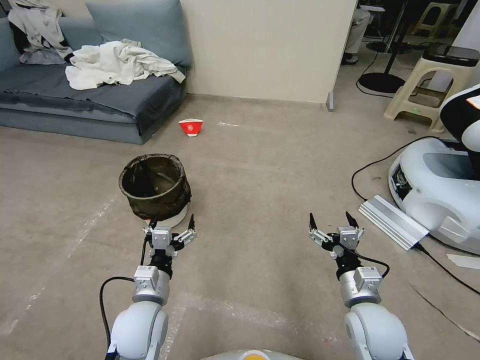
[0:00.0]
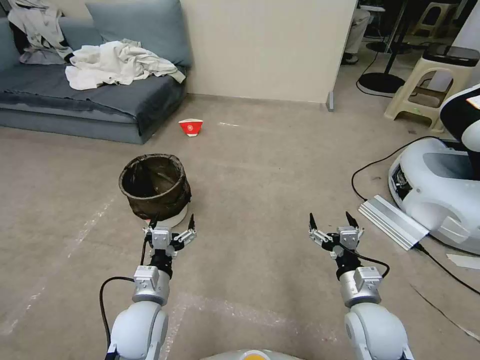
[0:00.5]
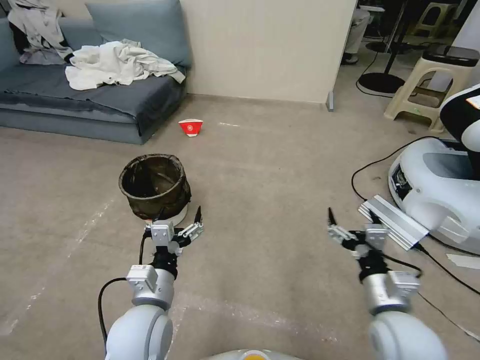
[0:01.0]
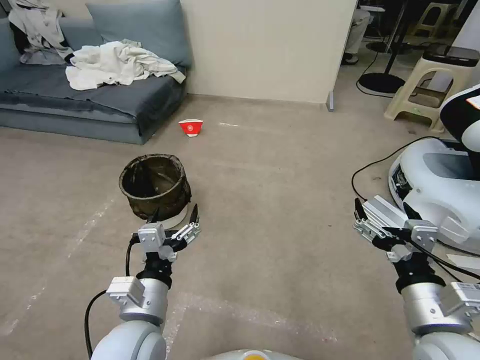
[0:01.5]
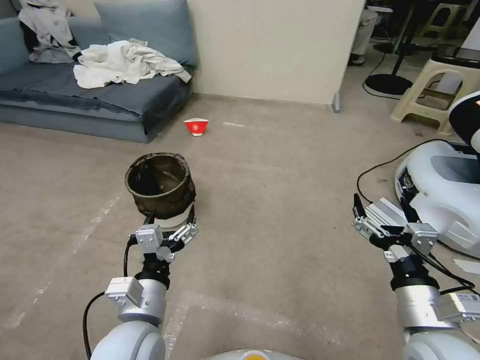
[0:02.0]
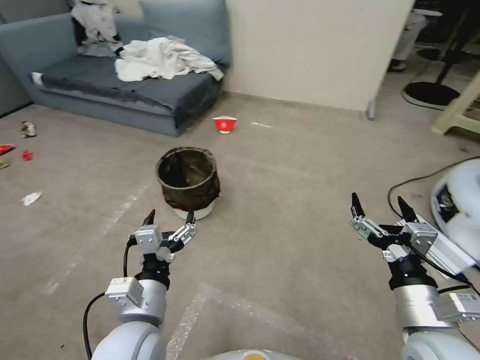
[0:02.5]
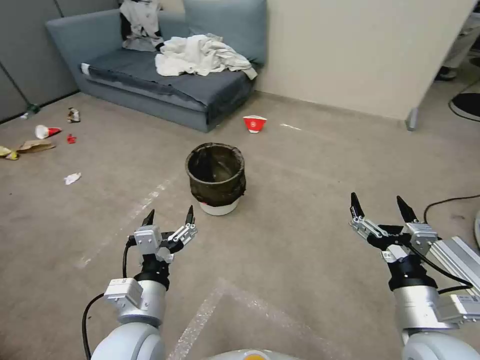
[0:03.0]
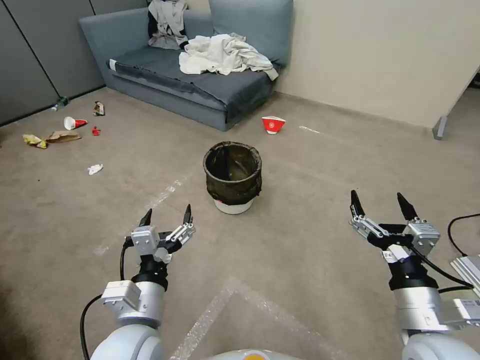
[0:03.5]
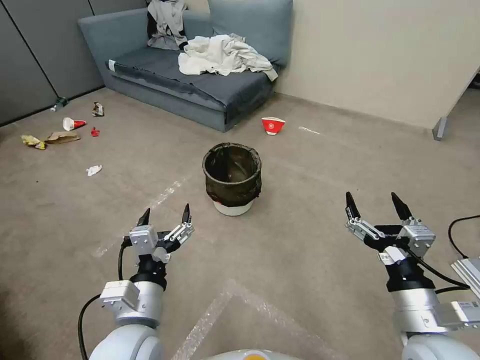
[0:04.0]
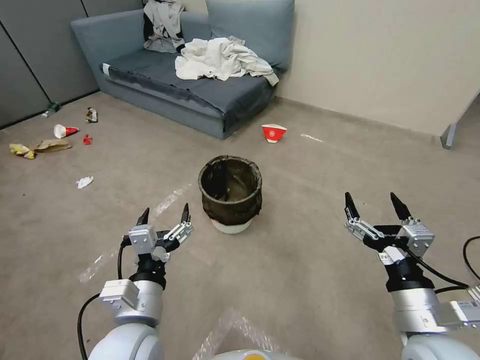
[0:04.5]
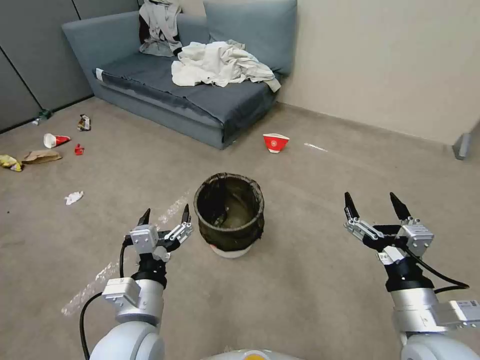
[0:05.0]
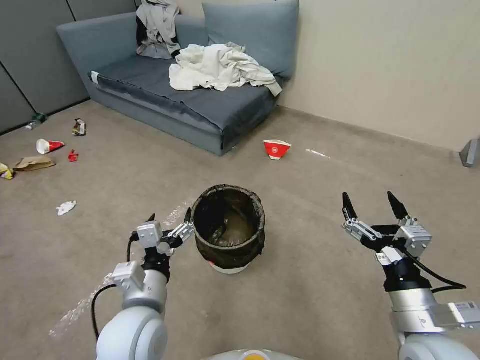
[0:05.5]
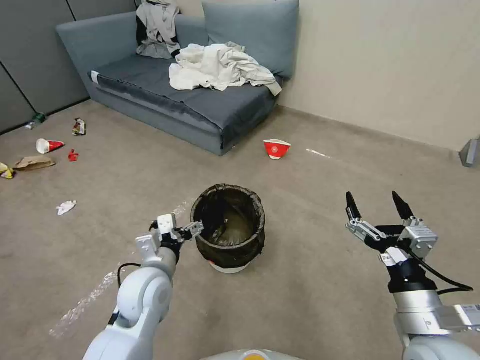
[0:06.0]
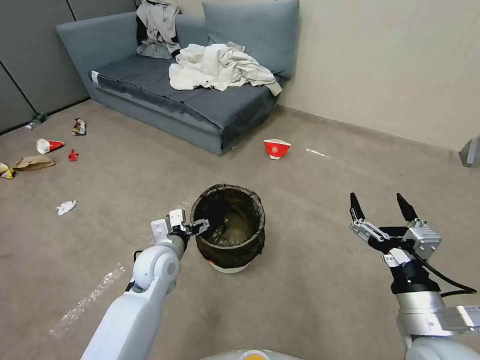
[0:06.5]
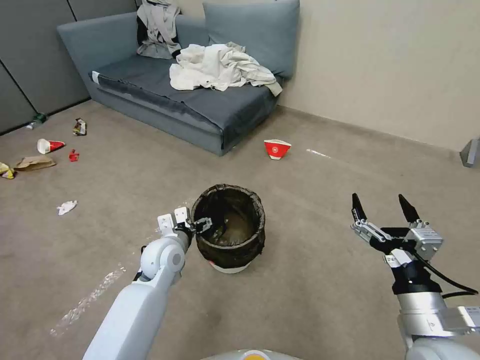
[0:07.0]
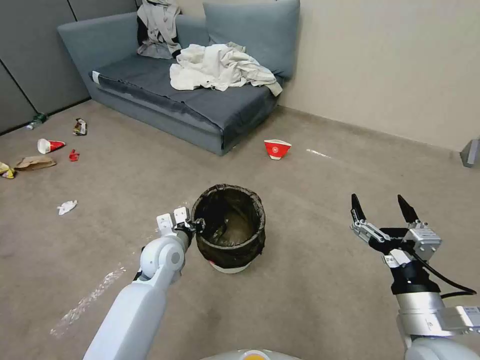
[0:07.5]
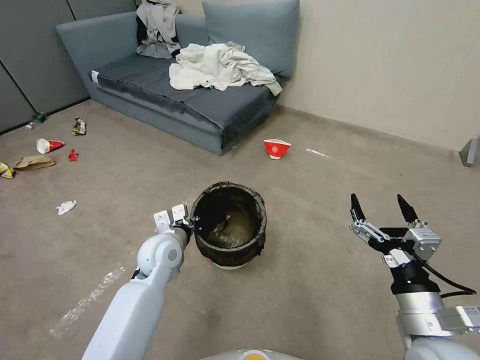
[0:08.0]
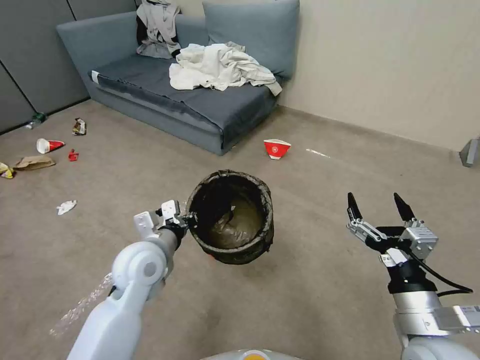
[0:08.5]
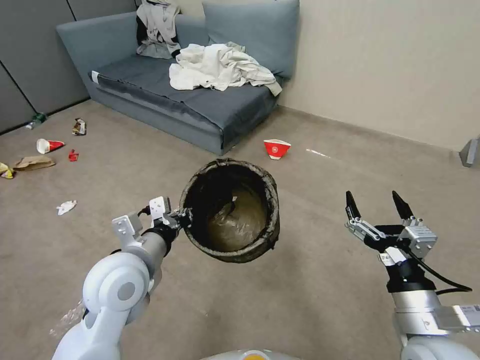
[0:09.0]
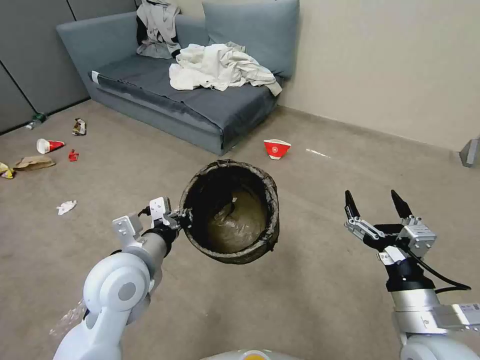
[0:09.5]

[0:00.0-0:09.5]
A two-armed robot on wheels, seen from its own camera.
Task of the whole recording: Pick up the trash can from the floor.
0:05.5 to 0:07.5: The left gripper is displaced forward and downward by roughly 20 cm, and closes its fingers.
0:07.5 to 0:09.5: The left gripper heads upward and backward, covering about 15 cm.

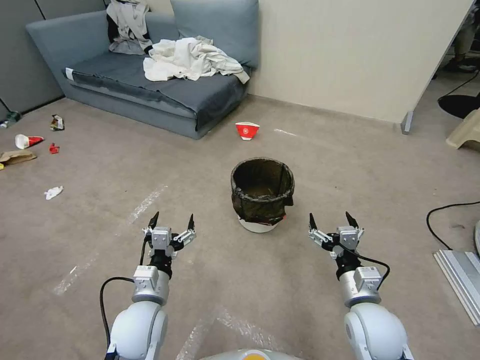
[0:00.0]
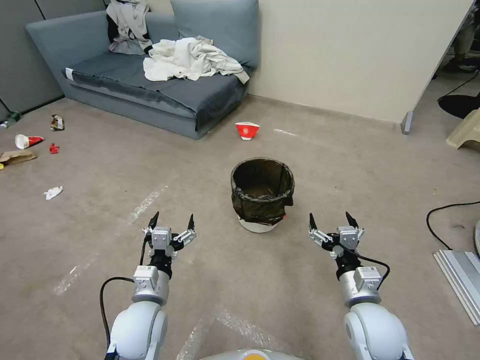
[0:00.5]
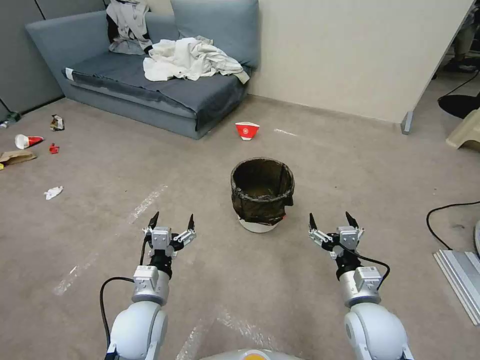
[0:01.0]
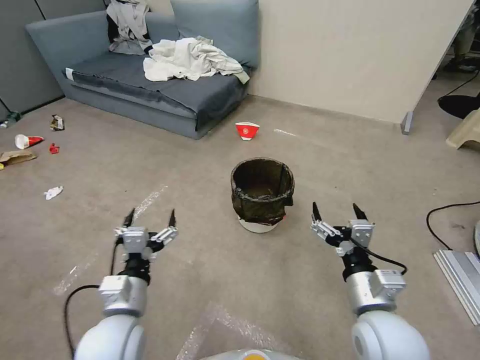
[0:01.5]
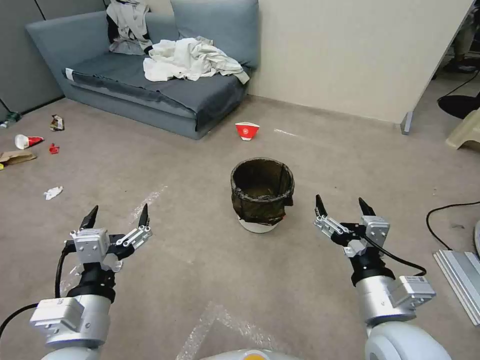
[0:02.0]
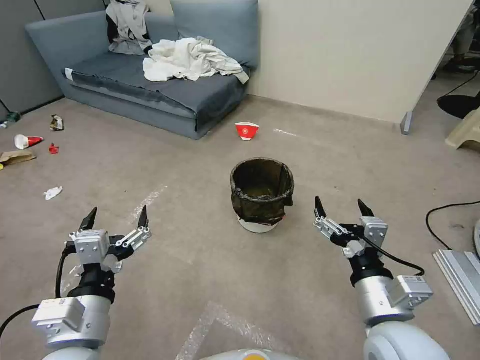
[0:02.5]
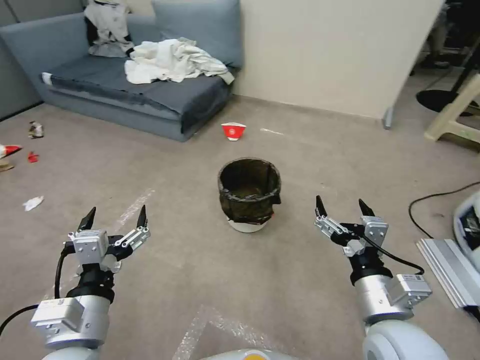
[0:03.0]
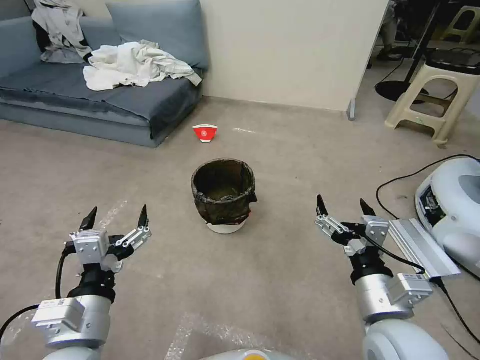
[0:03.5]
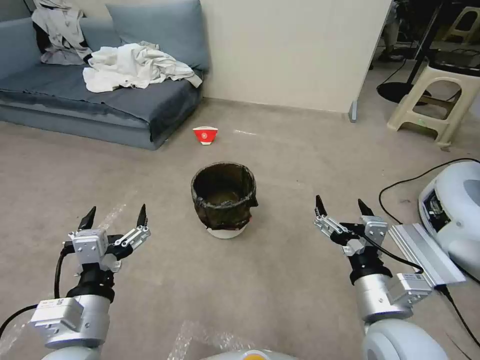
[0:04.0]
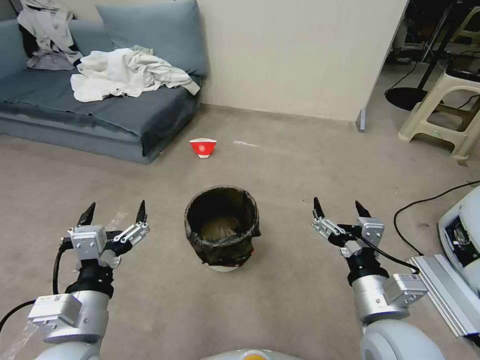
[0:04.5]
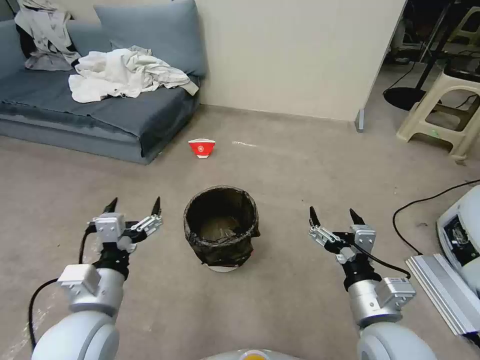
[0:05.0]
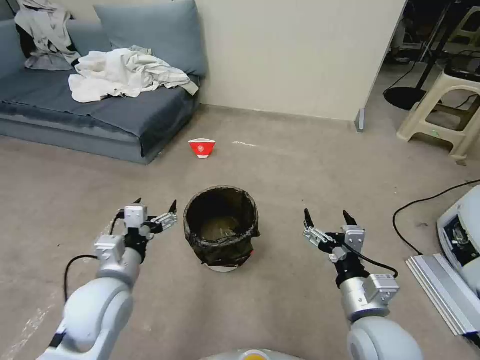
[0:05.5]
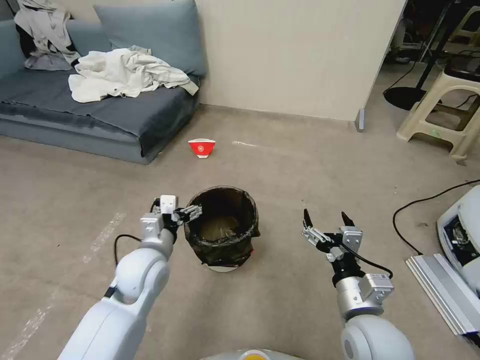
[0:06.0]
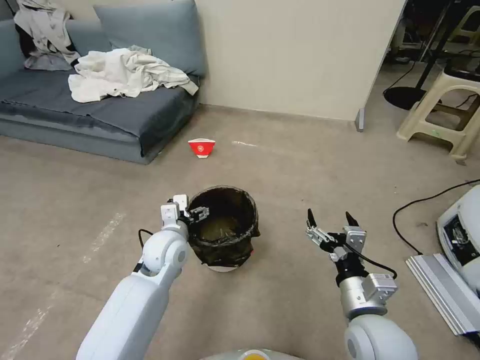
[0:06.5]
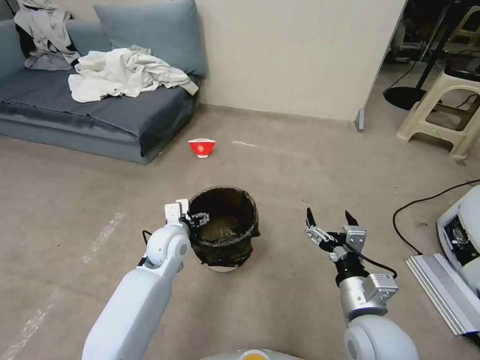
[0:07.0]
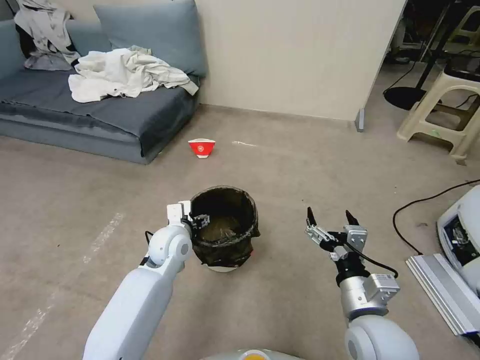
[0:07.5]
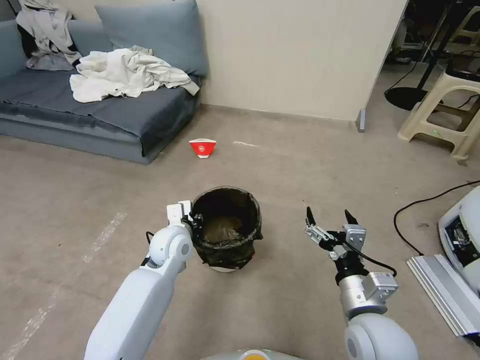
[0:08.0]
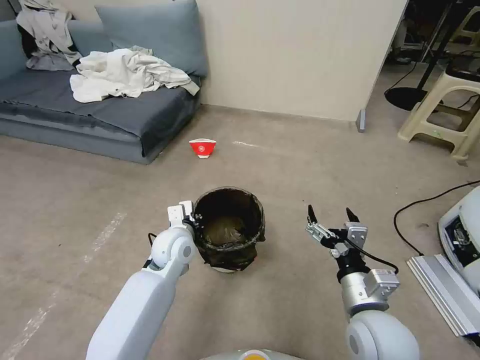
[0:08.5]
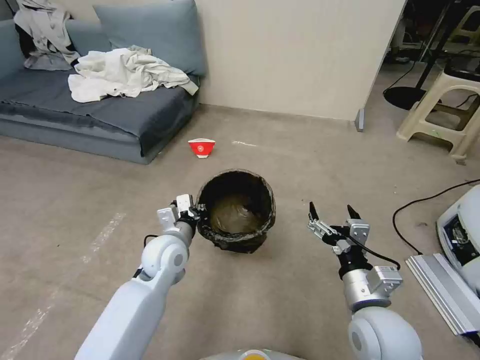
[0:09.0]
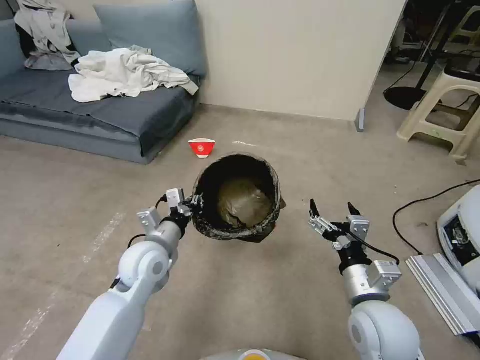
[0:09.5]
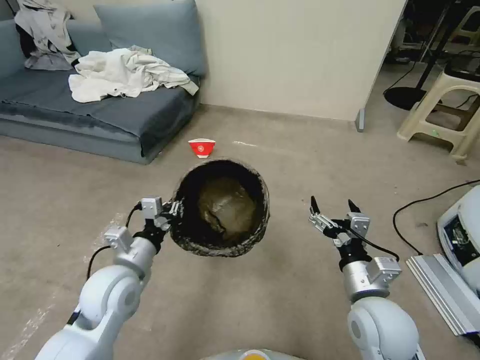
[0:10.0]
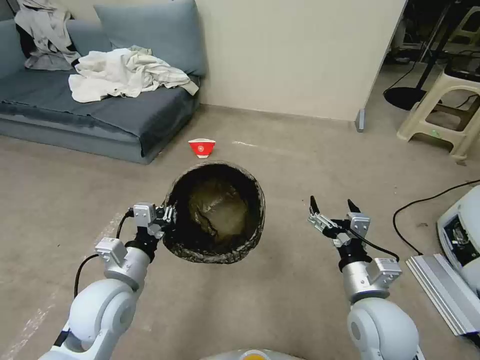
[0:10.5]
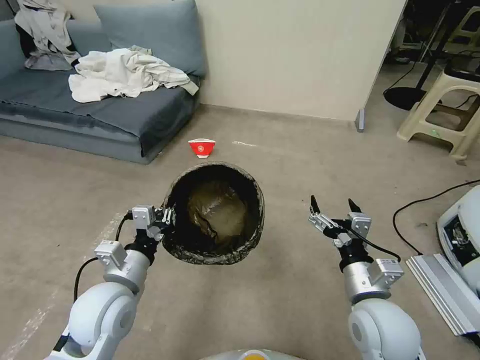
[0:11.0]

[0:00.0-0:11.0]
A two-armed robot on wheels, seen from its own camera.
Task of the whole recording: Pick up the trash can from the floor.
0:03.5 to 0:05.5: The left gripper is displaced forward by approximately 10 cm. The right gripper ends up some 5 cm from where it was.
0:05.5 to 0:07.5: The left gripper shifts about 20 cm forward, to the right and downward.
0:07.5 to 0:09.0: The left gripper closes its fingers.
0:09.0 to 0:11.0: The left gripper moves backward and to the left, some 15 cm.

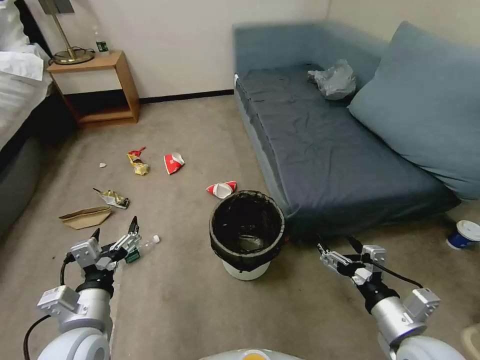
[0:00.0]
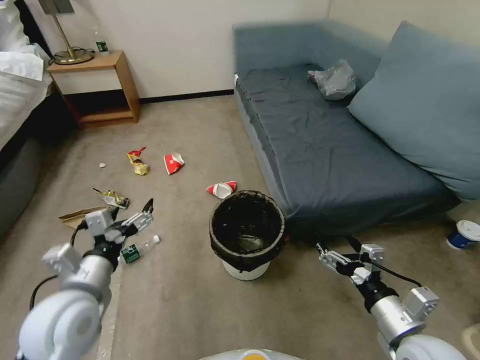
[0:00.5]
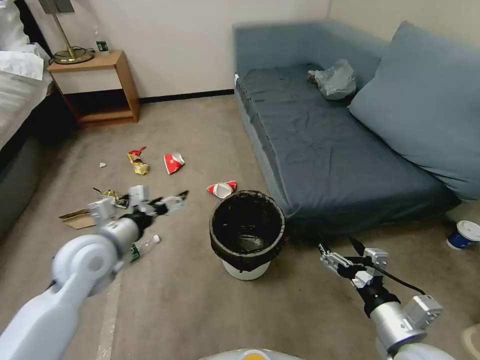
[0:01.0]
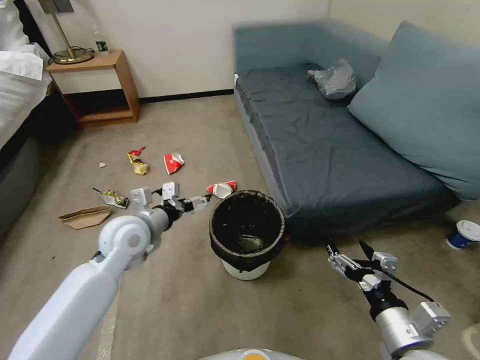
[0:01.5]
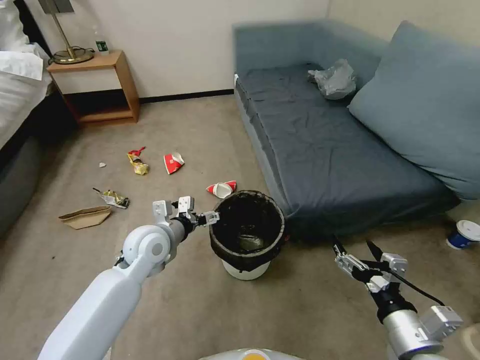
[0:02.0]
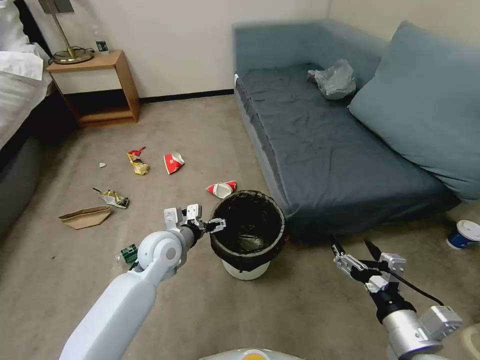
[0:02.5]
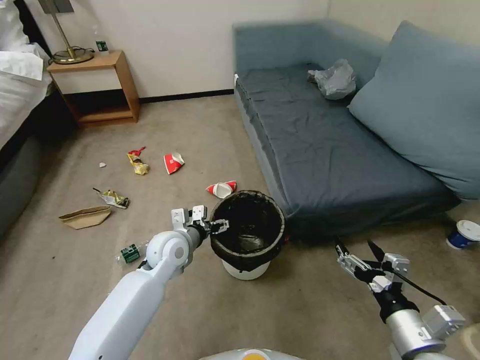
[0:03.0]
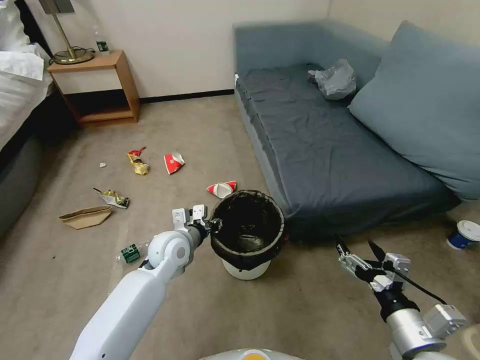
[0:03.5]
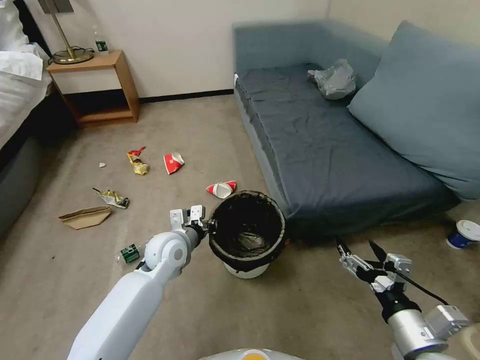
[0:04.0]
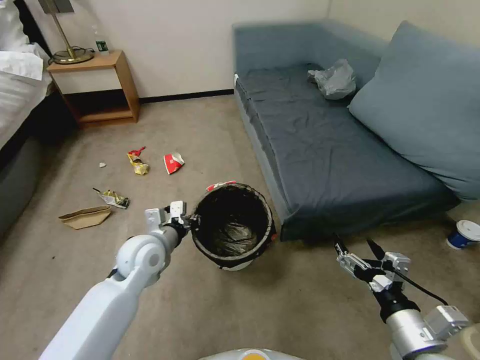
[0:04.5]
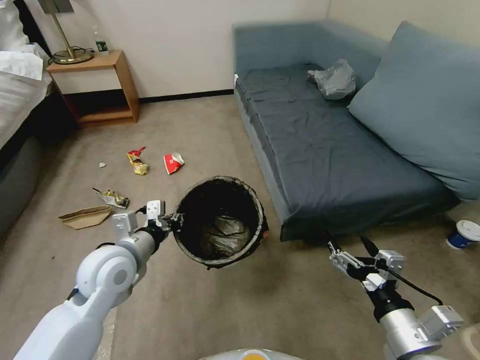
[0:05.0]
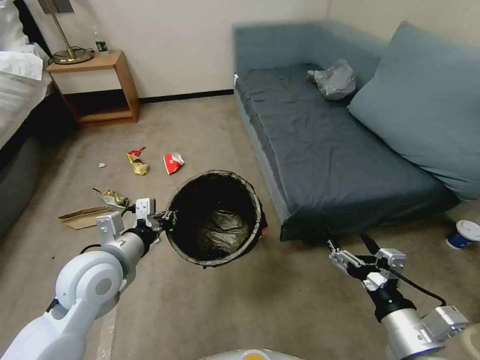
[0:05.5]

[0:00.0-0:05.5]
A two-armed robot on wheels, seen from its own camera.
Task of the whole recording: Pick up the trash can from the floor.
0:00.0 to 0:02.0: The left gripper heads forward, covering roughly 20 cm.
0:02.0 to 0:03.5: The left gripper shifts about 5 cm downward, and closes.
0:03.5 to 0:05.5: The left gripper heads upward, backward and to the left, covering about 20 cm.
